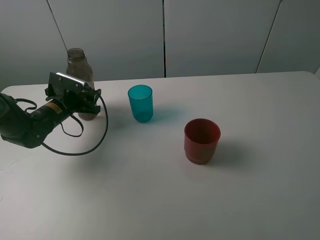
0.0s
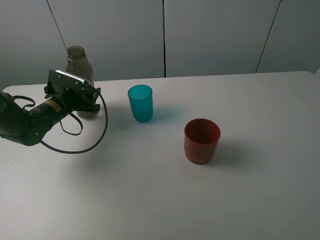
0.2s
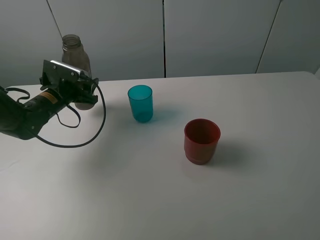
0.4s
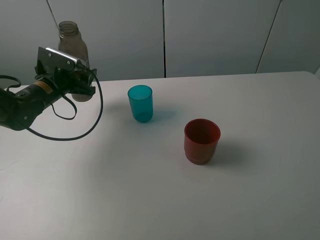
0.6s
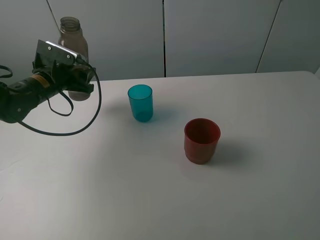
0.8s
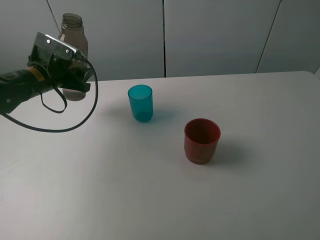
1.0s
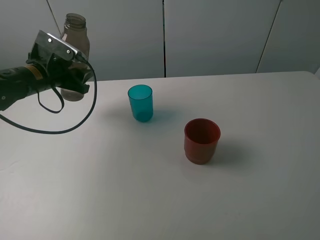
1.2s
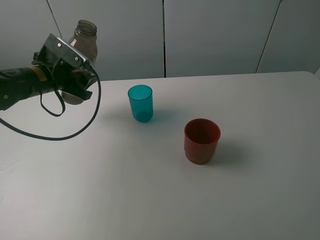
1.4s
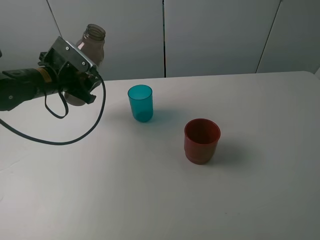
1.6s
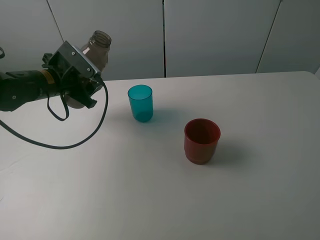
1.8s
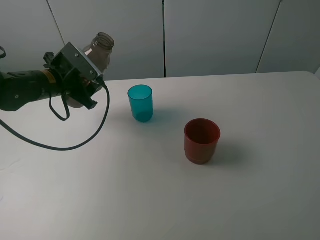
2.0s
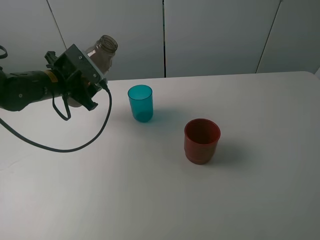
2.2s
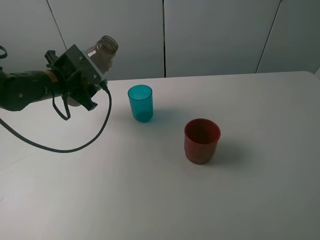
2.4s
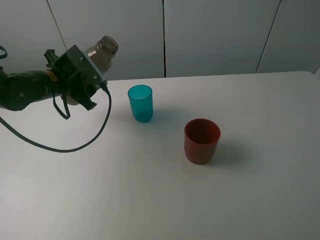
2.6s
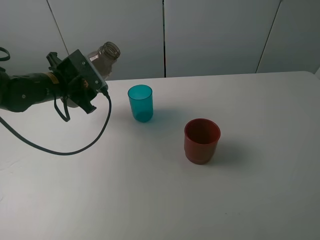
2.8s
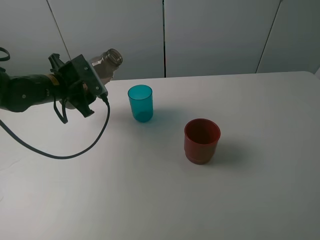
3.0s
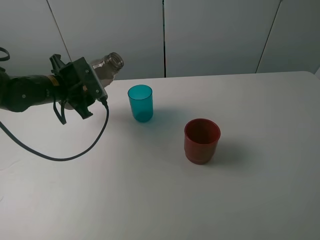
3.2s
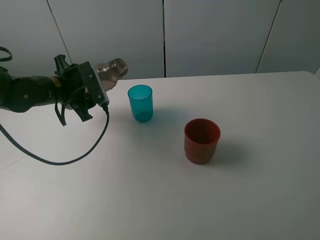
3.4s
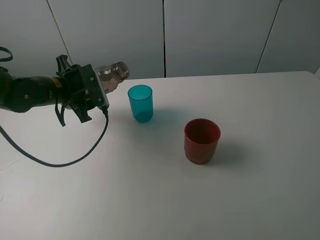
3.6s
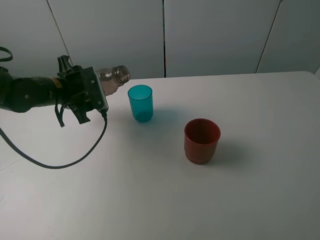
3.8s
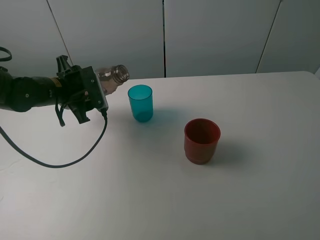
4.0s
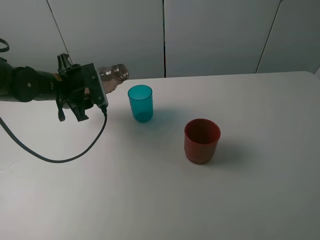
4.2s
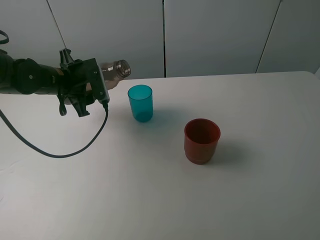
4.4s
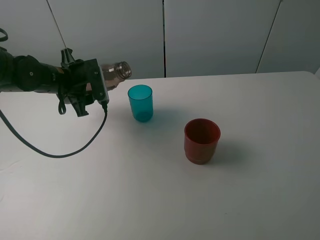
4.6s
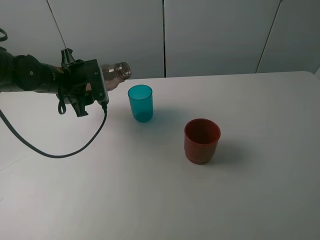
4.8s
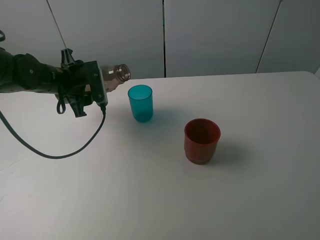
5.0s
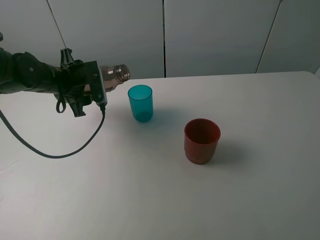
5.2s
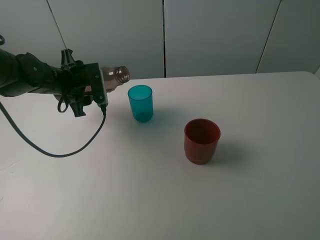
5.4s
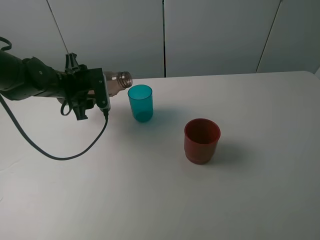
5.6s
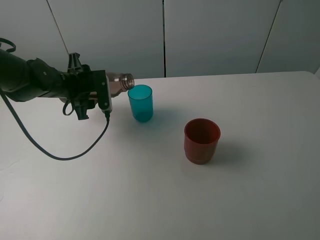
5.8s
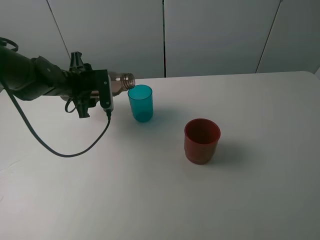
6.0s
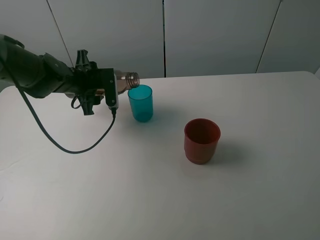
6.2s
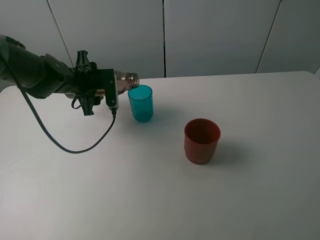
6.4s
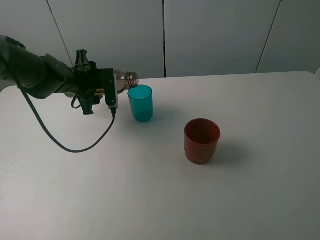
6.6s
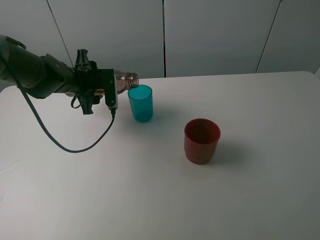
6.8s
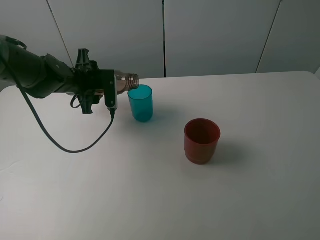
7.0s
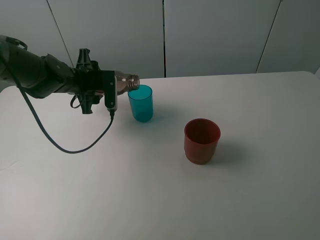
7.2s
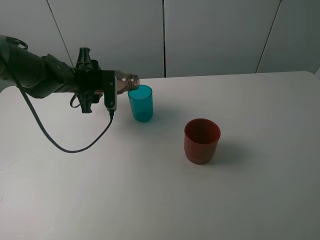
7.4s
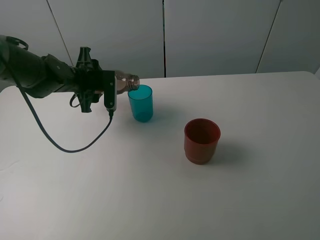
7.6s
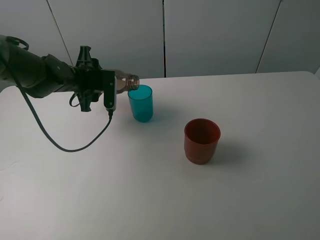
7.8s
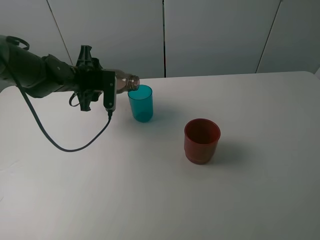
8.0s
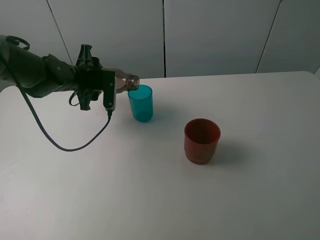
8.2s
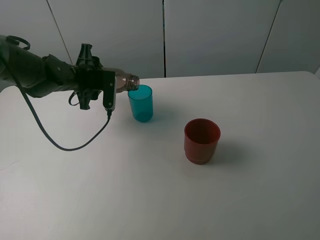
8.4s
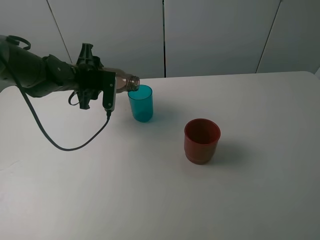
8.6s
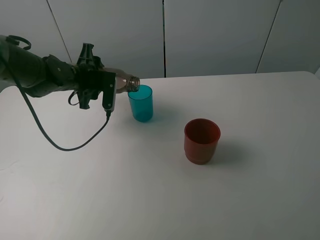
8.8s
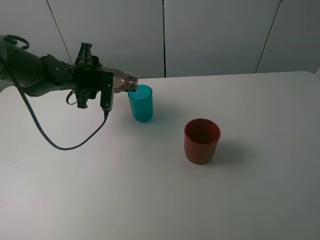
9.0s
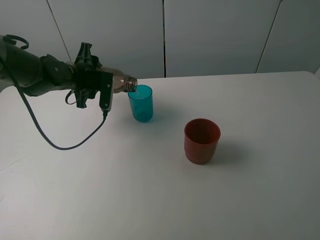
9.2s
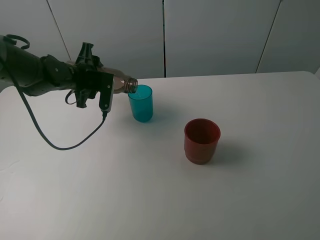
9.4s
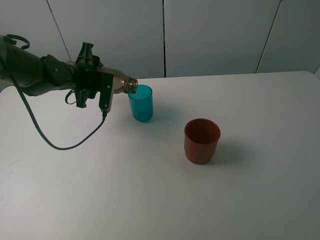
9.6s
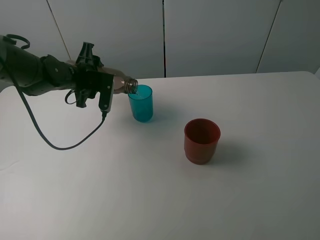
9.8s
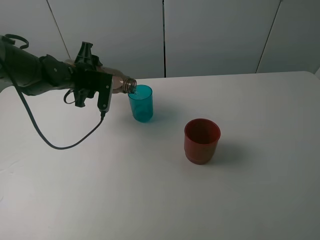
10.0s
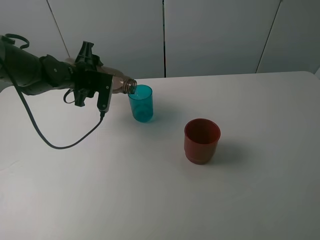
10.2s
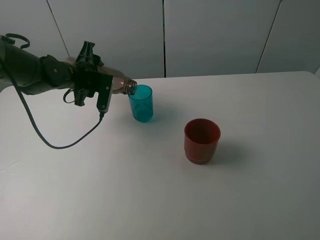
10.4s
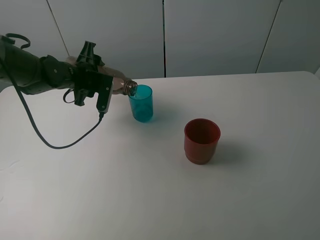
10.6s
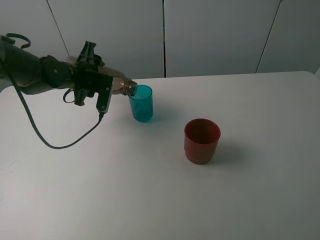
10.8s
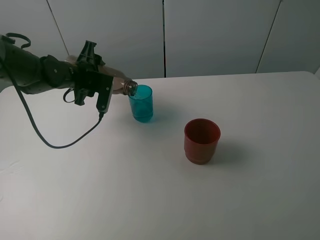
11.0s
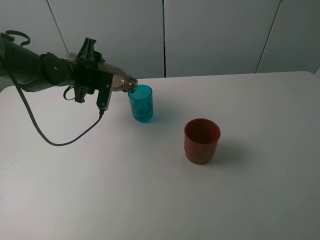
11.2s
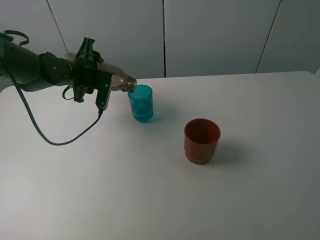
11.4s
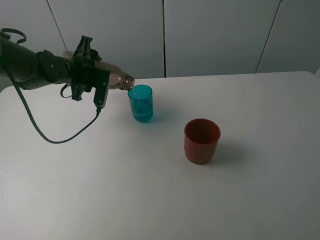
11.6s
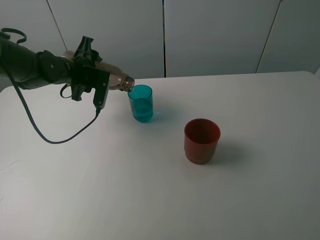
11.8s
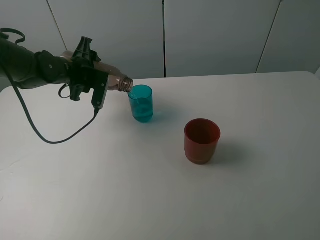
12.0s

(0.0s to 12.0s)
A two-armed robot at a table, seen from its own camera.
Task of the whole recording: pick up the bottle and pour water into the cup, then pick up the cup containing water and pour it into another cup.
0.0s - 1.6s: The left gripper shifts roughly 10 cm upward.
3.0s - 4.4s: The grippers stay close to where they were, moving slightly.
4.4s - 6.0s: There are only small adjustments of the grippers.
6.0s - 9.0s: There are only small adjustments of the grippers.
9.0s - 12.0s: The grippers move only a little.

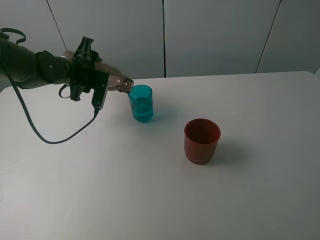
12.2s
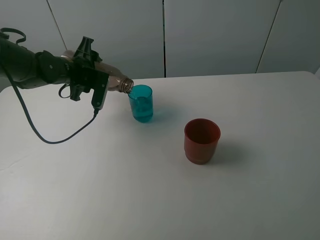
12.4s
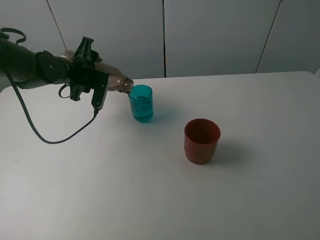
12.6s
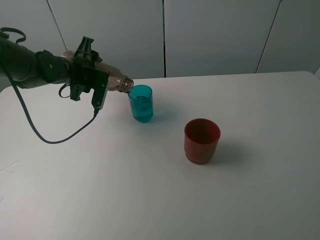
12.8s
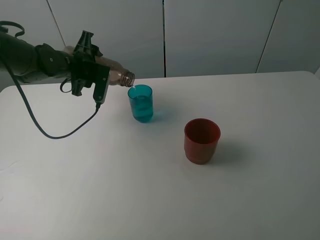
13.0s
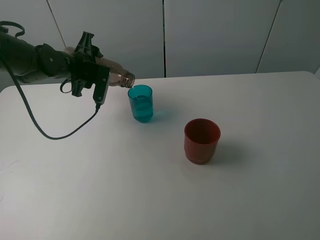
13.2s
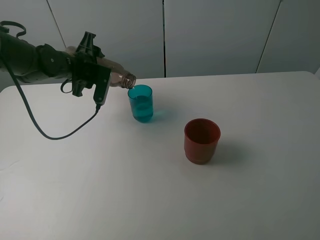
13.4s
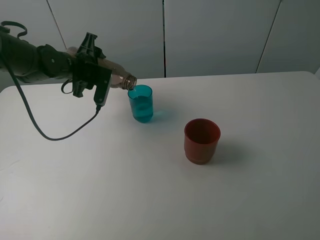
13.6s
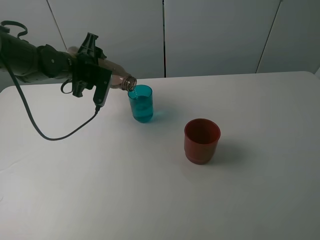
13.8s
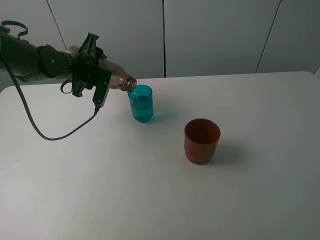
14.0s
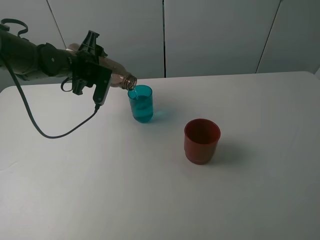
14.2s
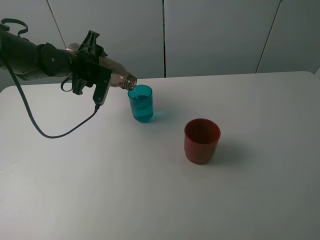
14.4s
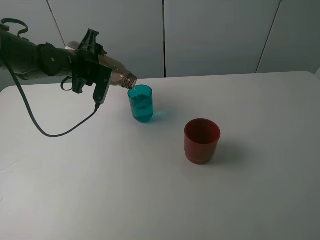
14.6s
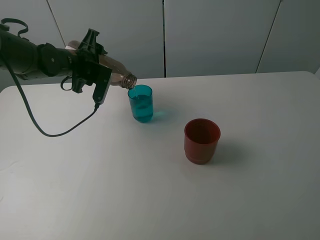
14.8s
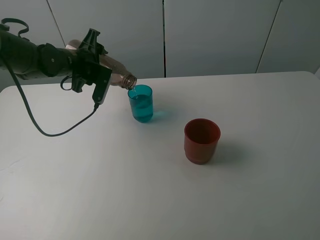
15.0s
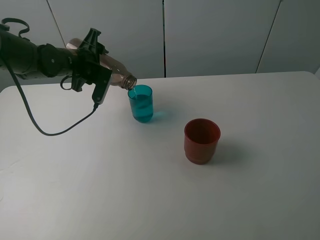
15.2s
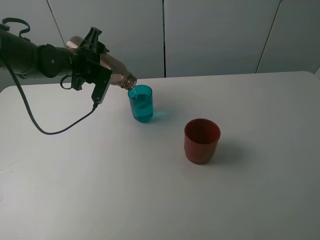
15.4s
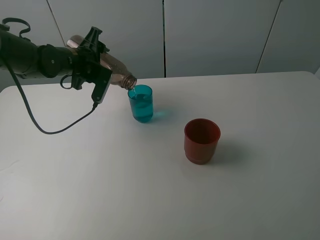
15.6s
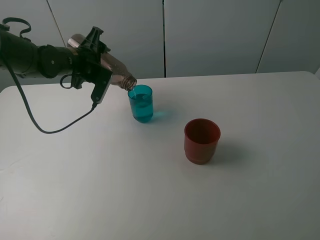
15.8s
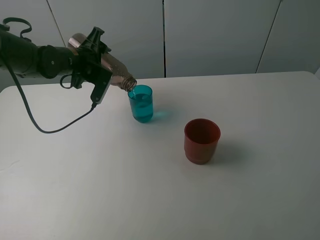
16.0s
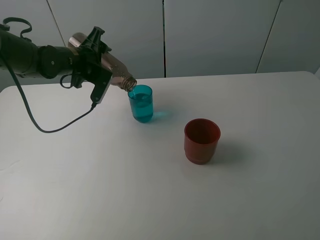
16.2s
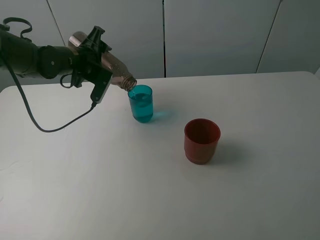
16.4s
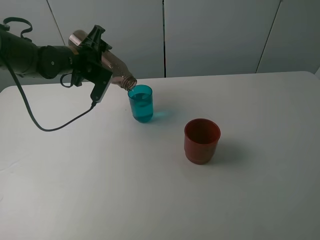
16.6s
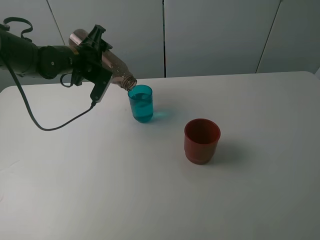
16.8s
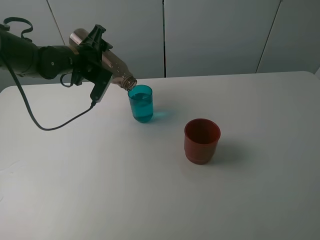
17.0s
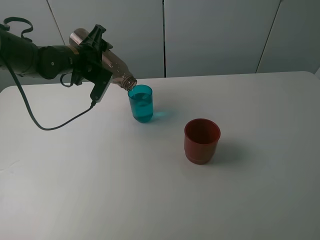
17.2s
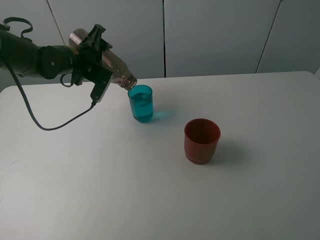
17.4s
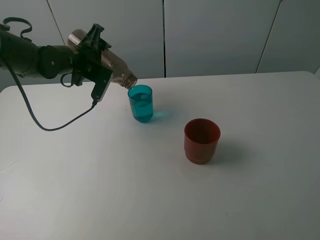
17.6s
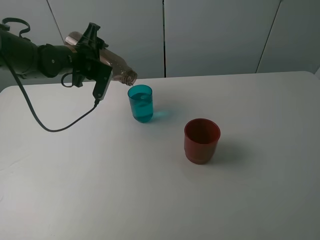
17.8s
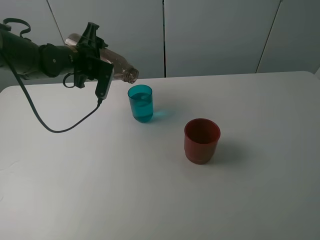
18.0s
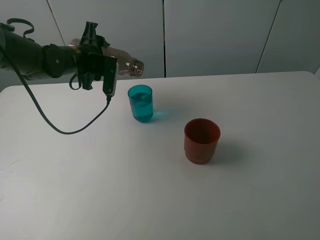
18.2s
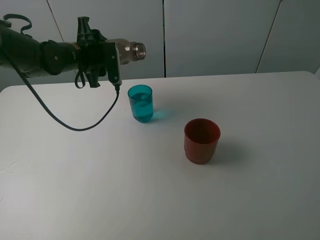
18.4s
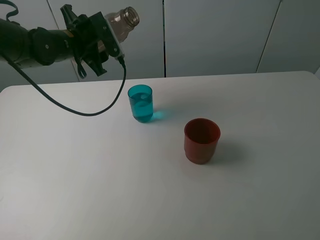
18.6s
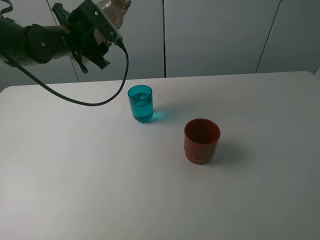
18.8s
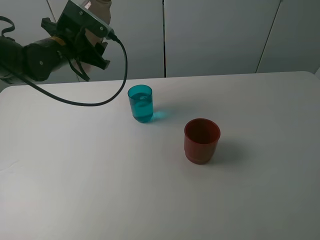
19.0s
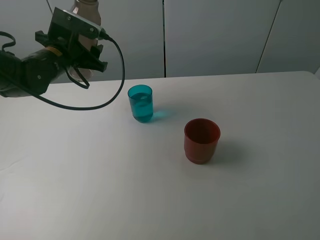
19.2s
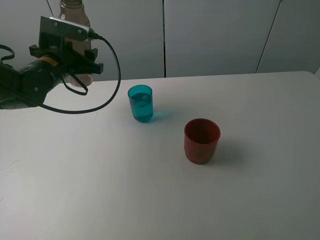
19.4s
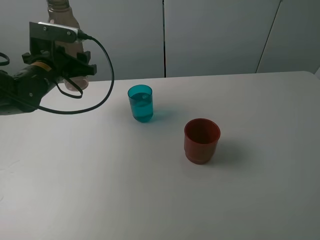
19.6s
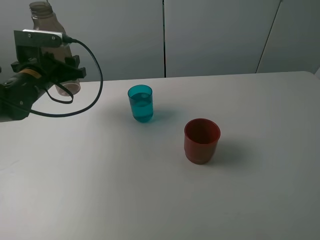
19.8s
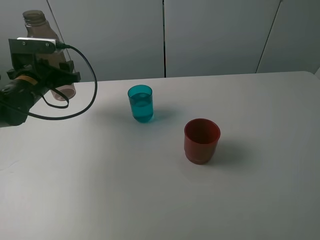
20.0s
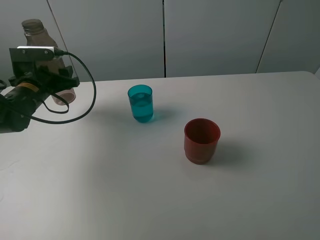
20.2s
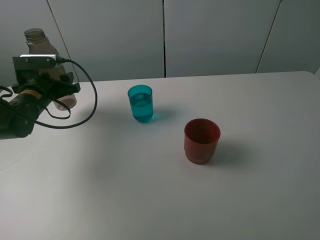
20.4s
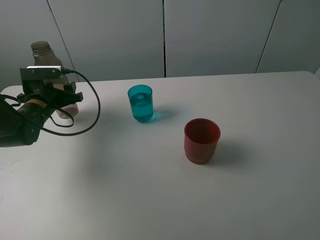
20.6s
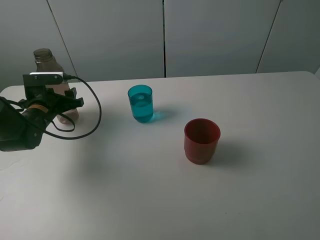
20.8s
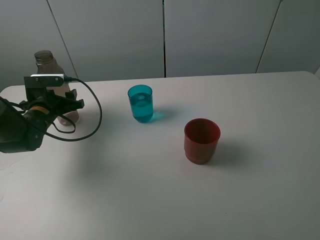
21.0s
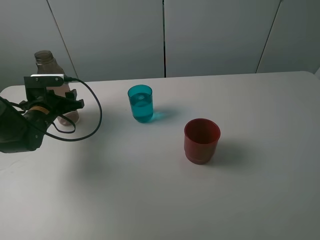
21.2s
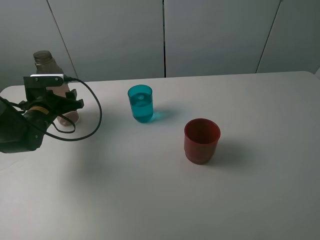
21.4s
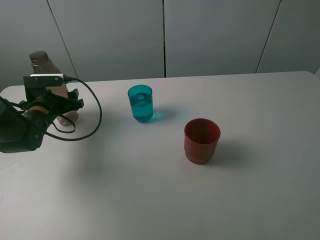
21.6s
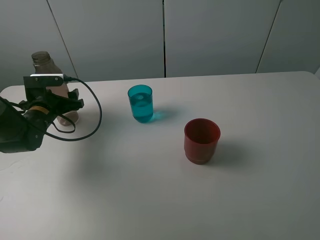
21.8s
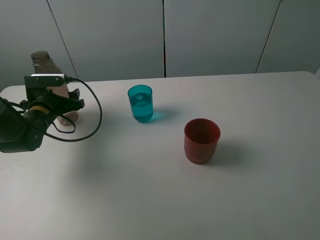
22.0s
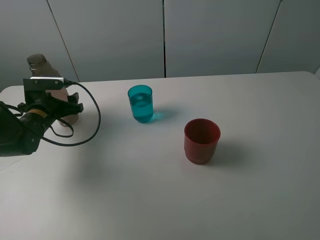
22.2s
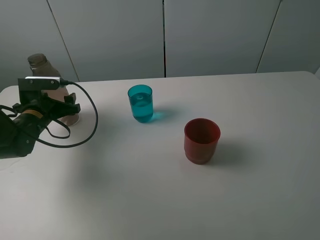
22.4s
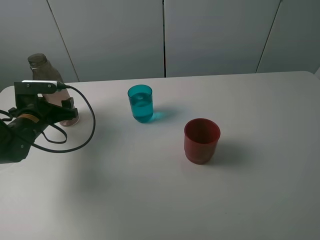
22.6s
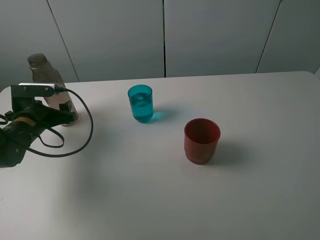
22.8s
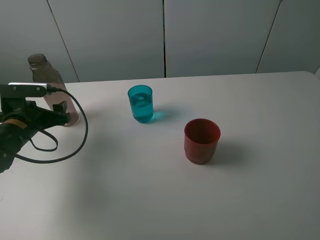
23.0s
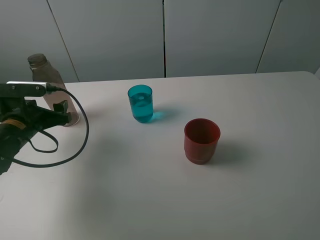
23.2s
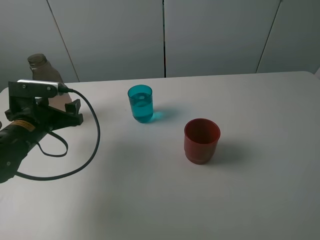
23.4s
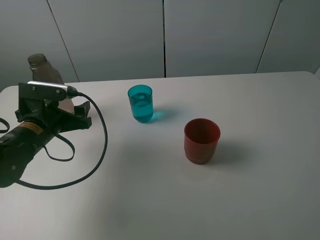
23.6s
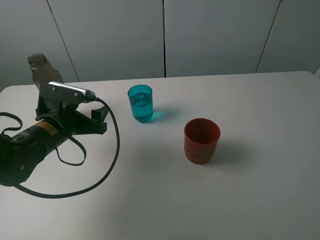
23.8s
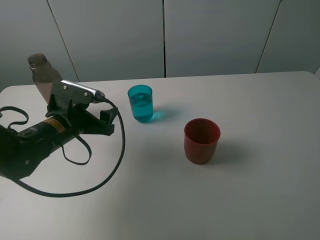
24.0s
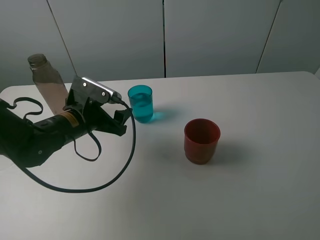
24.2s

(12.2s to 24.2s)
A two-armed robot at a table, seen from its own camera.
Task of the whole recording: pick up the bottle and pour water into the cup, then pick up the cup containing water and pour it into another cup.
Step, 12.2s - 18.0s: Pour water from brown bottle to blue cup with the left gripper.
Step, 18.2s - 21.6s: Place the brown bottle with the left gripper.
12.2s - 13.8s: Both grippers stay put.
13.8s - 16.6s: The grippers move only a little.
18.2s - 19.8s: The left gripper is displaced to the left and backward by approximately 10 cm.
19.8s - 21.2s: The left gripper is displaced downward by roughly 10 cm.
21.2s - 22.6s: The left gripper opens.
22.6s - 24.2s: The left gripper heads to the right, covering roughly 10 cm.
